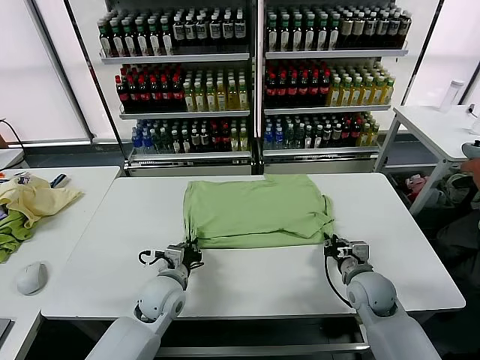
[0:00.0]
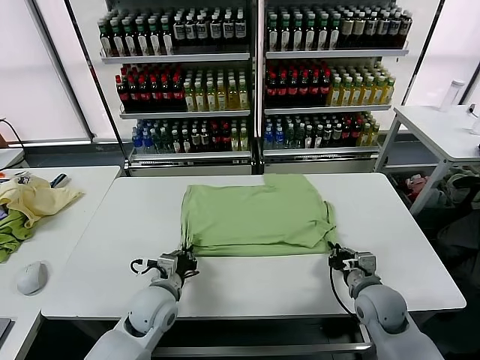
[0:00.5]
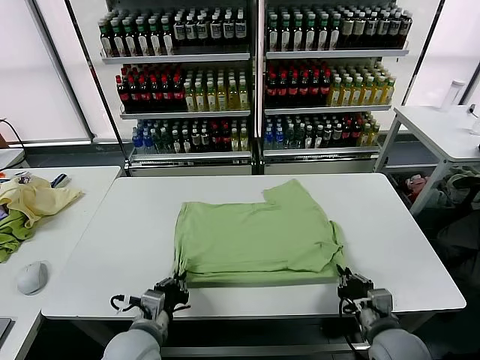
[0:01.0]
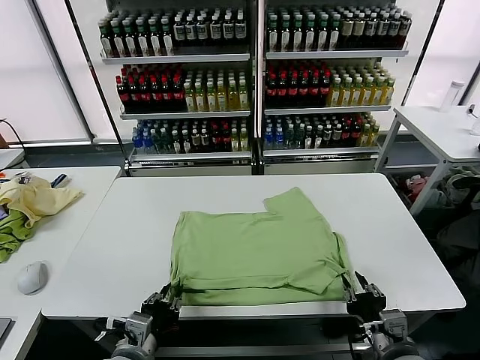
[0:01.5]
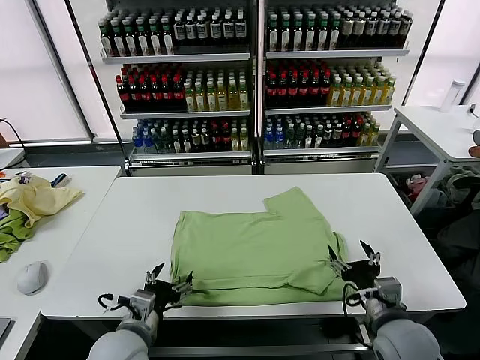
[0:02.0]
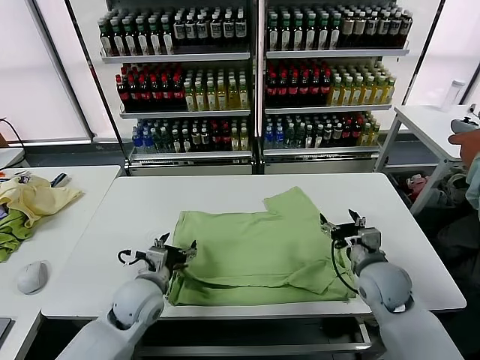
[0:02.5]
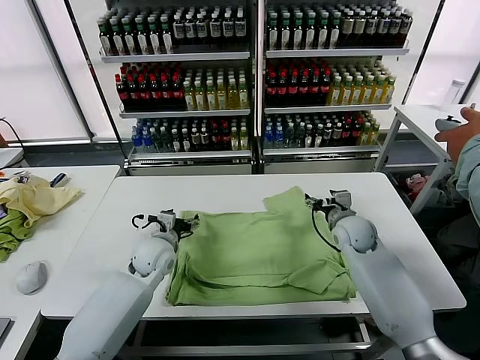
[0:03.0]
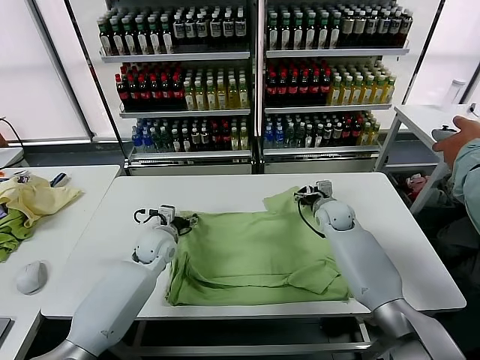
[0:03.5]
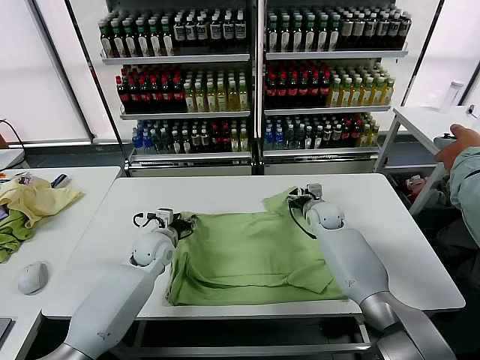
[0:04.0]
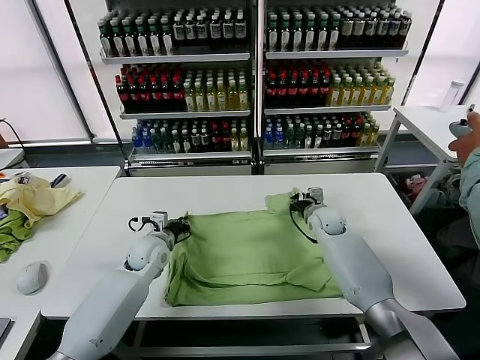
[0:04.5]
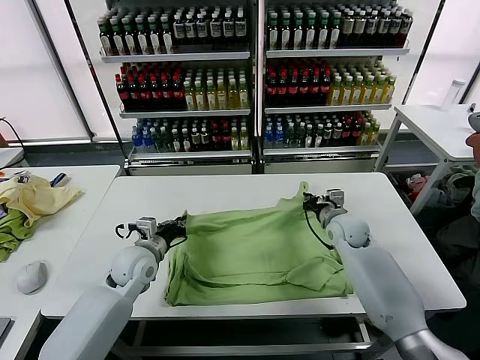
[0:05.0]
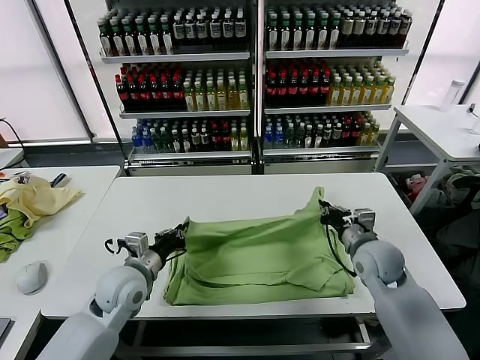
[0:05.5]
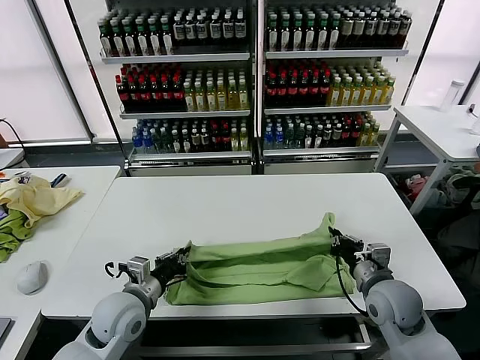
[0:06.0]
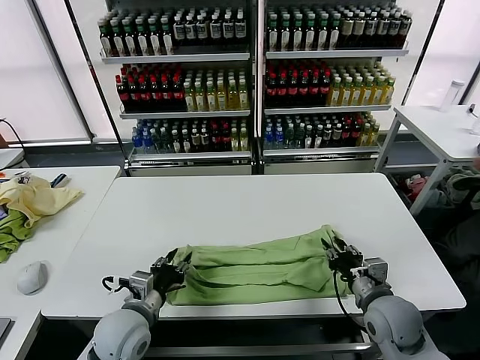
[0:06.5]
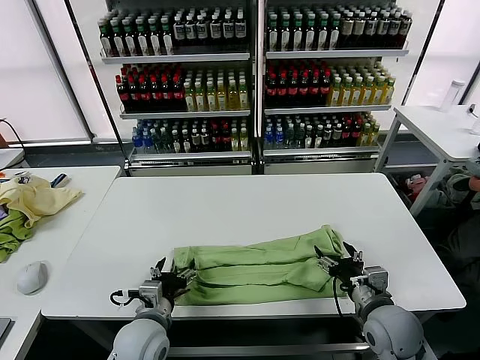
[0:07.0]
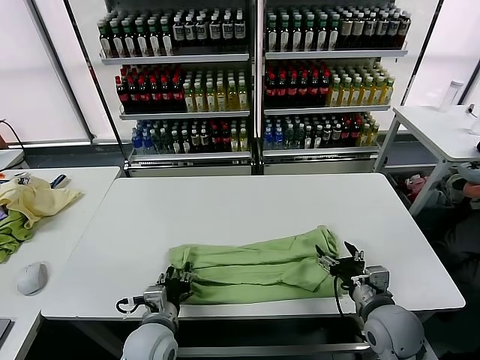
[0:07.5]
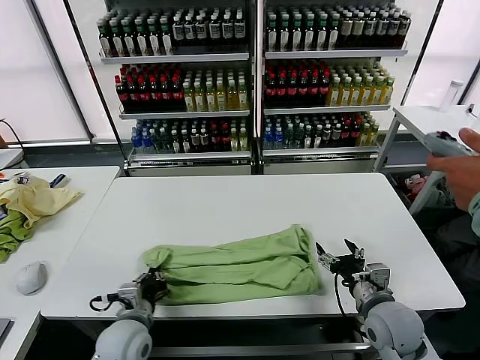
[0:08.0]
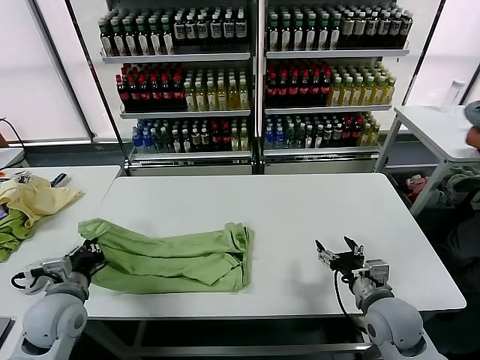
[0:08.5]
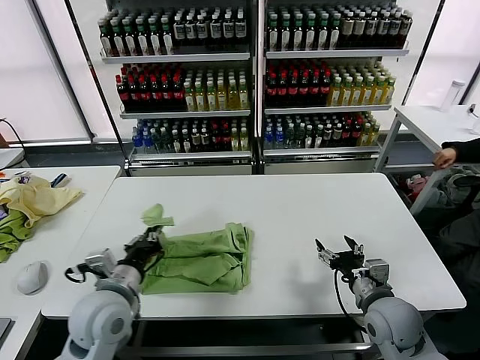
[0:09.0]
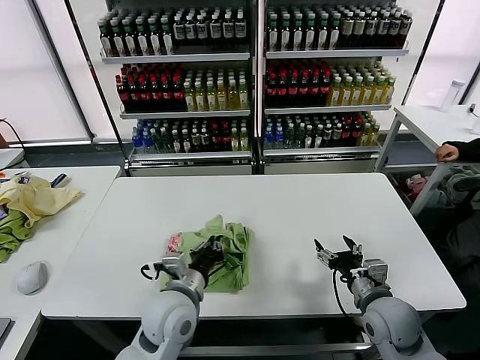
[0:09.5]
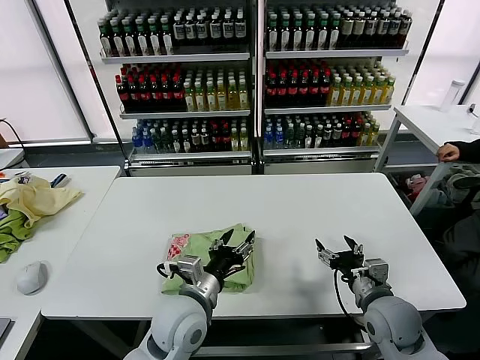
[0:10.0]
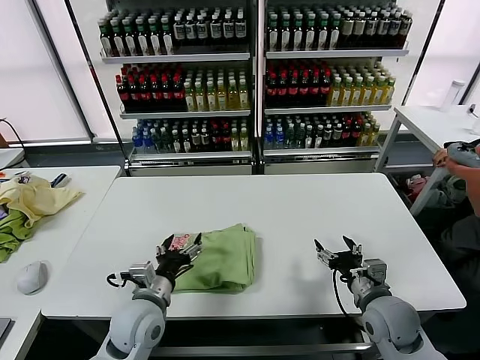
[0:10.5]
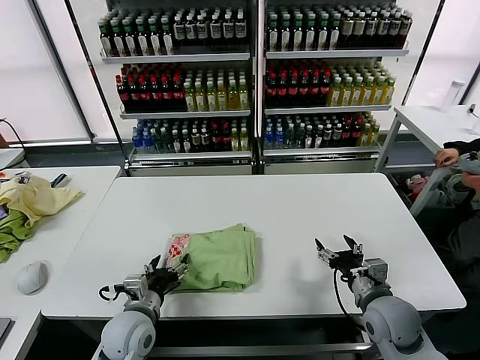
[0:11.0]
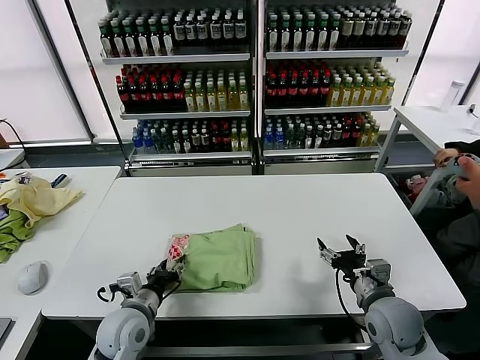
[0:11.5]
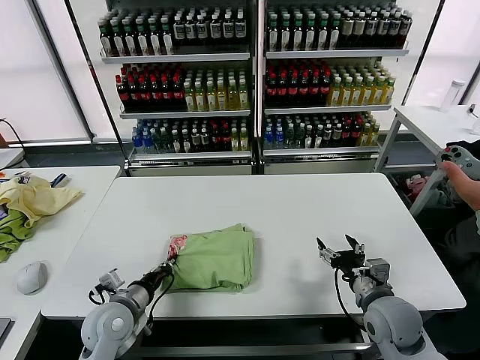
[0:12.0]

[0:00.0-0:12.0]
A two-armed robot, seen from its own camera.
Task of the whole recording: fold and organize the clothes.
Step, 0:00.0 to 0:01.5: Drag the clothes downward with both gripper.
Step, 0:02.0 to 0:04.5: use both grippers simultaneously to clamp the upper edge of the clothing fabric.
Step, 0:05.0 to 0:06.5: use both grippers to drag the upper edge of the fabric backward and fold it over the lower edge.
Step, 0:07.0 to 0:07.5: use the left gripper to clamp the left edge of the fabric.
Step, 0:08.0 to 0:09.5: use the left gripper to drag the left edge of the fabric to the left and folds it over the right edge.
0:00.0 to 0:02.0: The left gripper goes some 10 cm backward, and opens its fingers. The right gripper shifts some 10 cm backward and upward, and opens its fingers.
0:02.0 to 0:04.0: Both grippers move forward, about 25 cm. The left gripper closes up; the right gripper closes.
0:04.0 to 0:06.0: The two grippers go roughly 20 cm backward. The left gripper closes up; the right gripper closes its fingers.
0:06.0 to 0:08.0: The left gripper opens, then closes once more. The right gripper opens up.
0:08.0 to 0:10.0: The left gripper shifts approximately 15 cm to the right and upward, and opens up.
0:10.0 to 0:12.0: The left gripper travels to the left by roughly 15 cm, and closes its fingers.

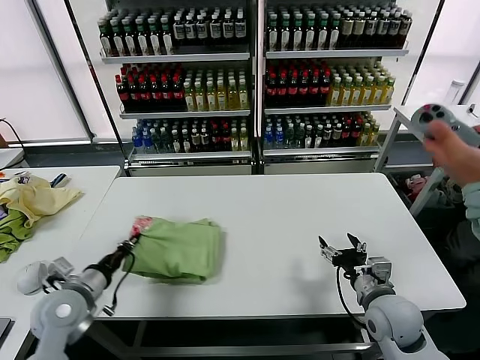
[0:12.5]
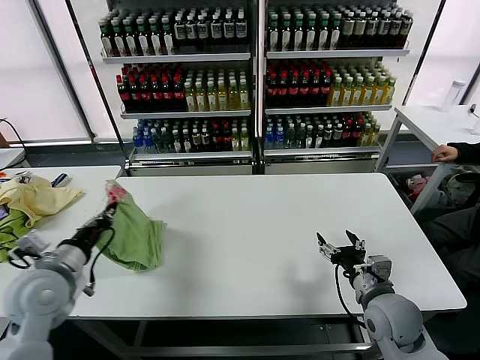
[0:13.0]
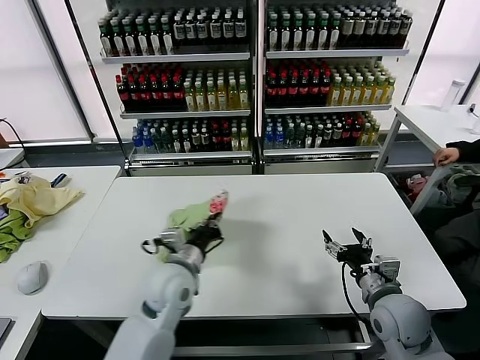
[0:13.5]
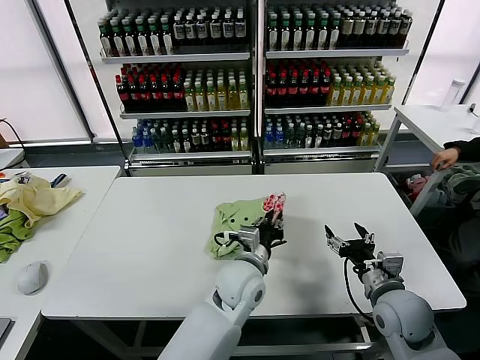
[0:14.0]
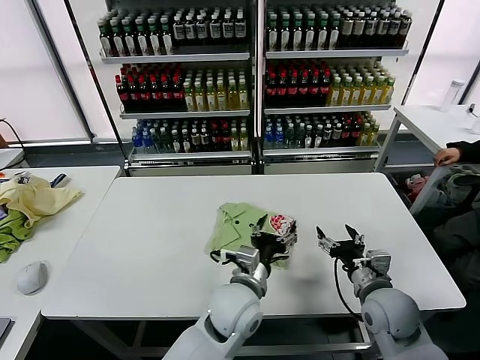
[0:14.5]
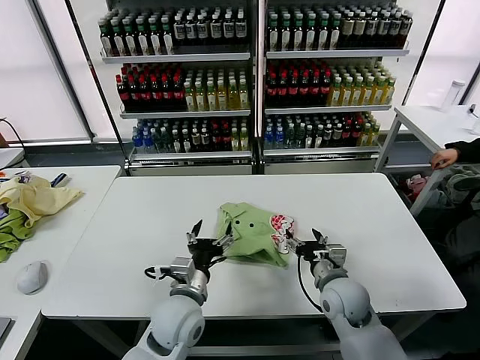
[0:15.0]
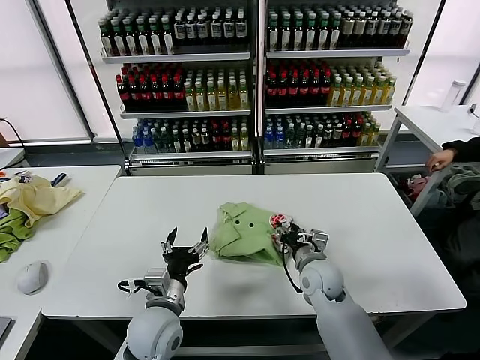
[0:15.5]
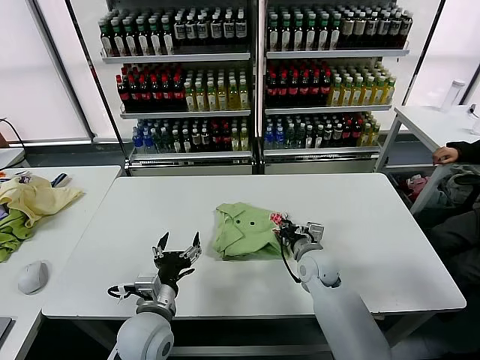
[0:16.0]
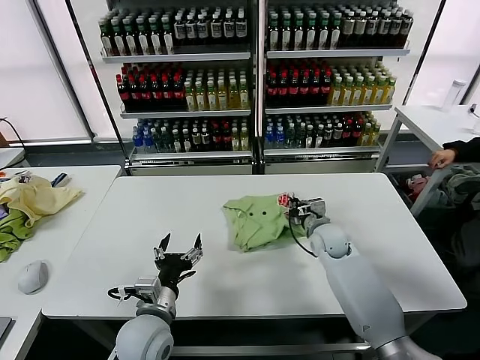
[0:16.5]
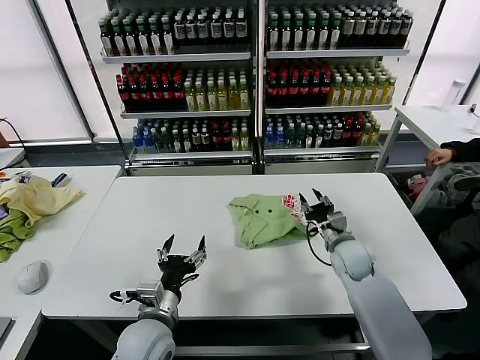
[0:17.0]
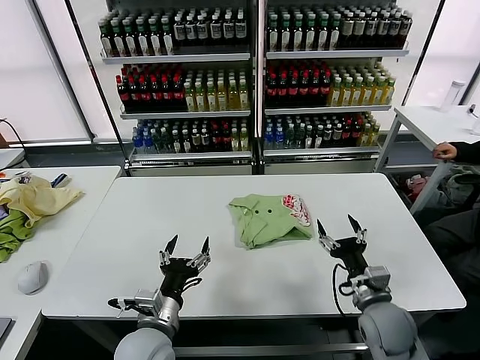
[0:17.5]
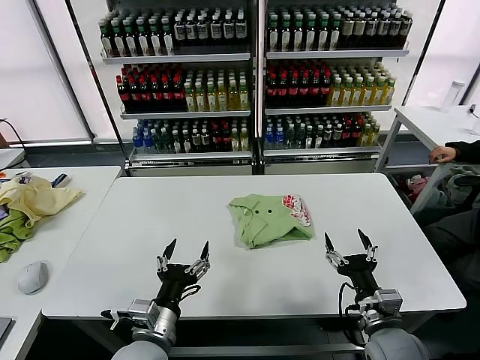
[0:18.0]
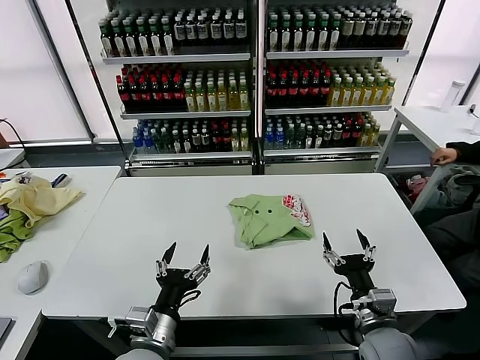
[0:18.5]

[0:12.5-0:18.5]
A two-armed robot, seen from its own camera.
Task of the whole recording: fold and organize the clothes.
Step, 0:14.5 to 0:16.5: Drag the clothes to the center of the table.
0:12.5 to 0:14.5: The left gripper moves to the right, about 35 cm, and opens up.
0:14.5 to 0:16.5: The right gripper is displaced forward by approximately 20 cm, and closes its fingers. The left gripper travels to the left by some 20 cm.
0:16.5 to 0:18.5: The right gripper is displaced backward by some 25 cm, and opens up. Meanwhile the left gripper shifts approximately 5 cm backward.
